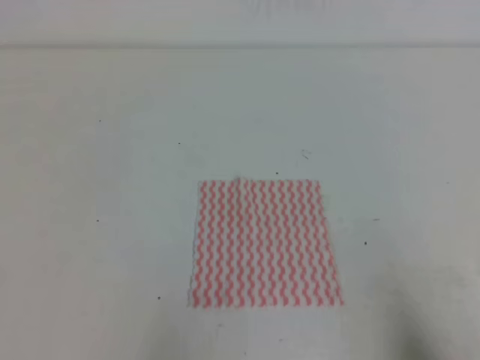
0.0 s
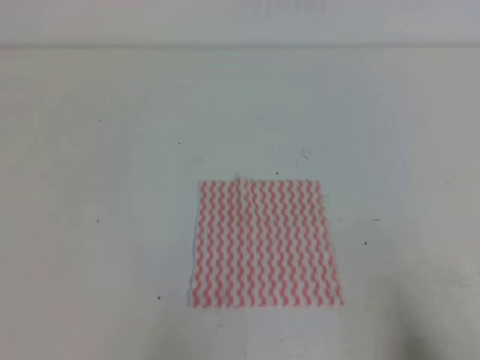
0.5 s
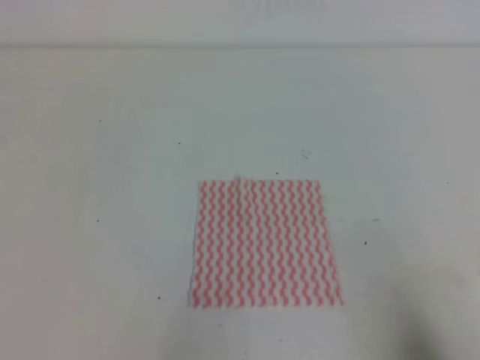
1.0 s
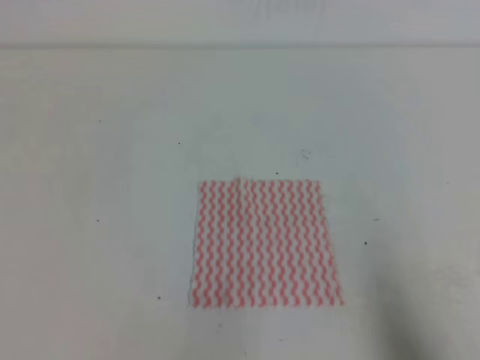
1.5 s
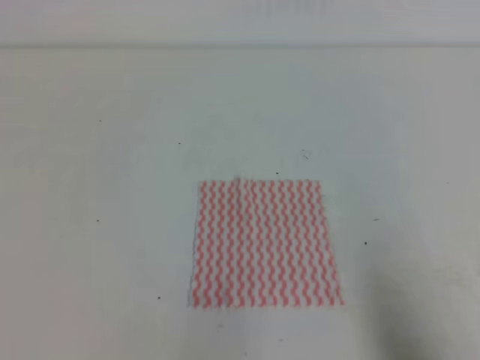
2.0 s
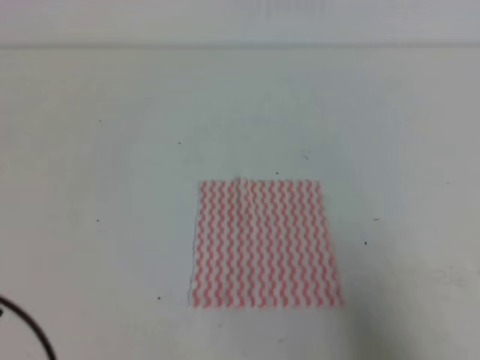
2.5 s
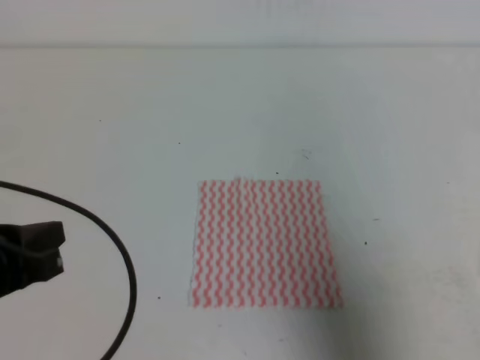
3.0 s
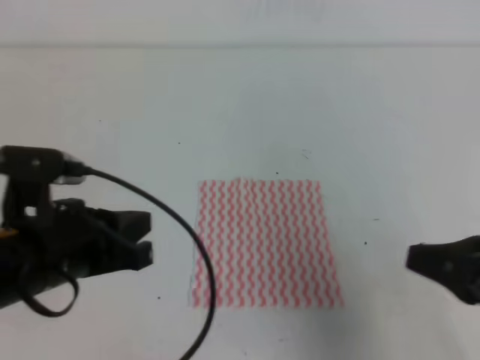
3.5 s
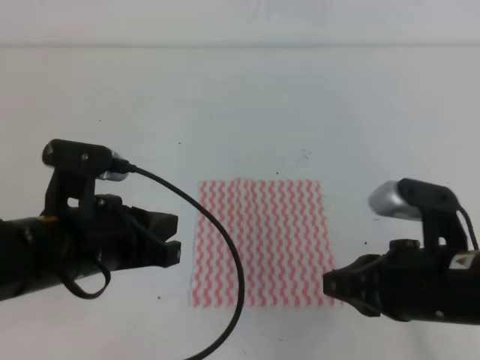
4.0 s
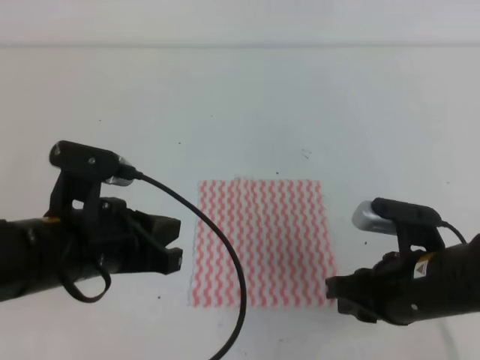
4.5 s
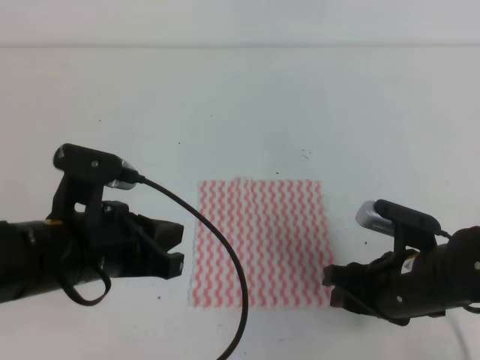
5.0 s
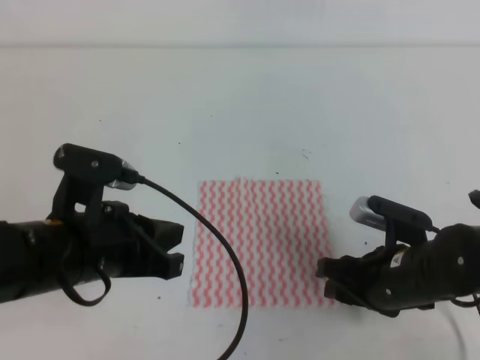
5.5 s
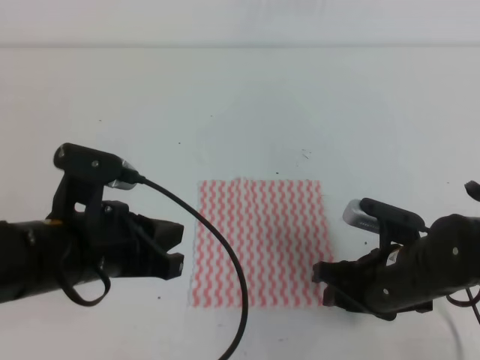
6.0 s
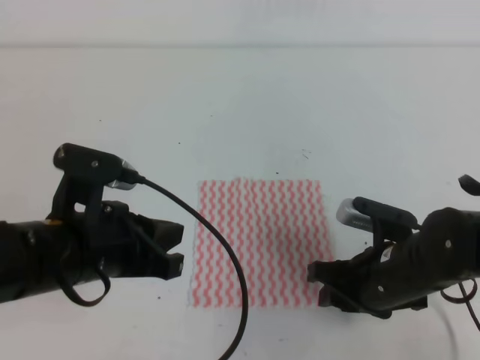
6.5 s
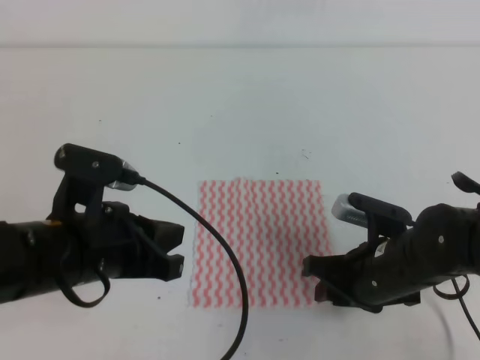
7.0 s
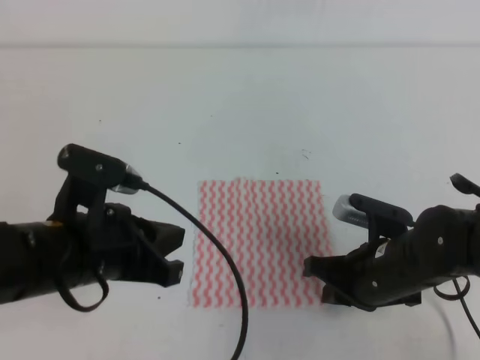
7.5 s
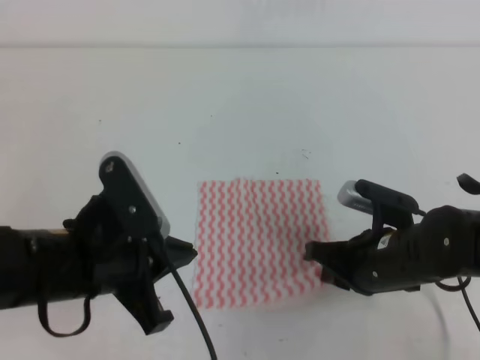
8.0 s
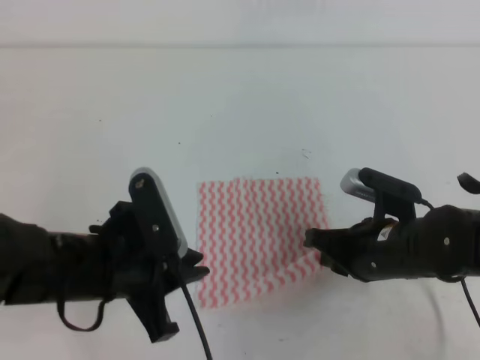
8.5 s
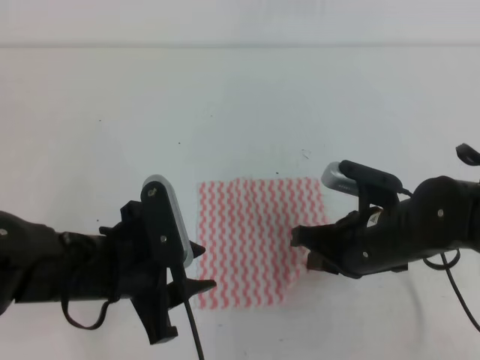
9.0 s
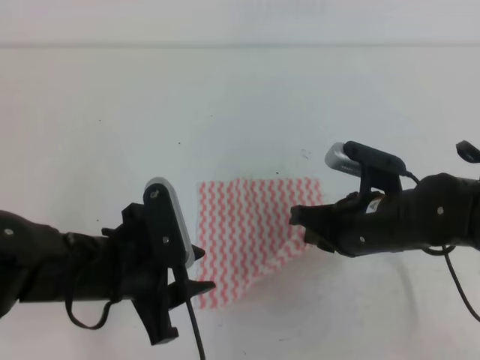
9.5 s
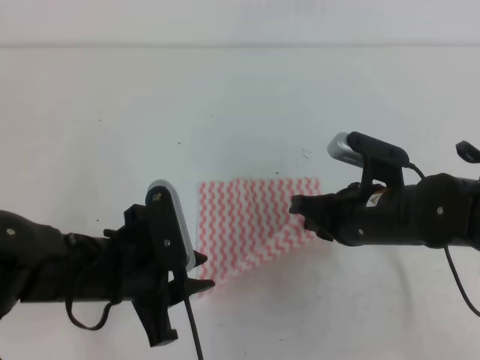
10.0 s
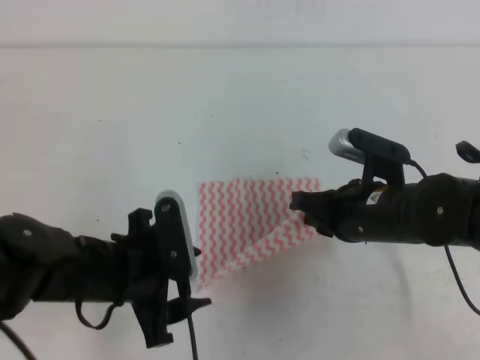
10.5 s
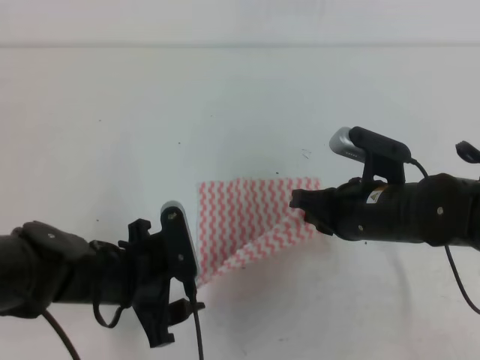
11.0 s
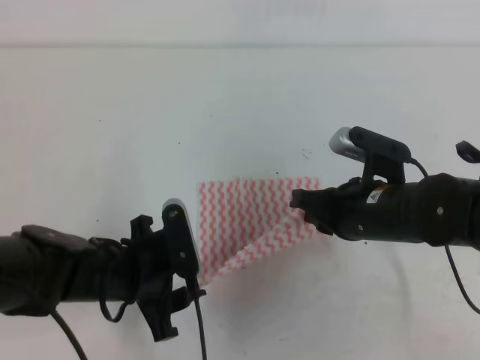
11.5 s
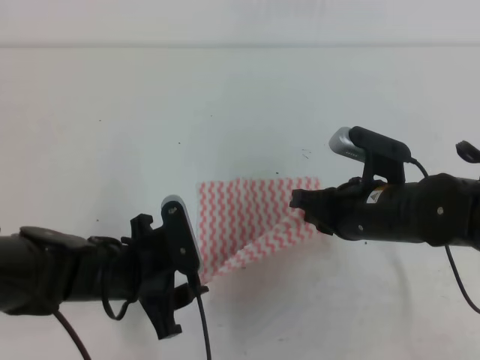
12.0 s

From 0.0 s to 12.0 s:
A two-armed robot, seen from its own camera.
From 2.0 s to 4.0 s: The left gripper moves forward and to the right, roughly 20 cm. The right gripper is displaced to the left and forward by approximately 20 cm.
From 4.0 s to 6.0 s: The right gripper heads downward and forward, covering approximately 10 cm, and opens its fingers.
From 6.0 s to 8.0 s: The right gripper closes its fingers.
From 8.0 s to 10.0 s: The left gripper opens its fingers.
From 10.0 s to 12.0 s: The left gripper heads downward, covering about 5 cm.

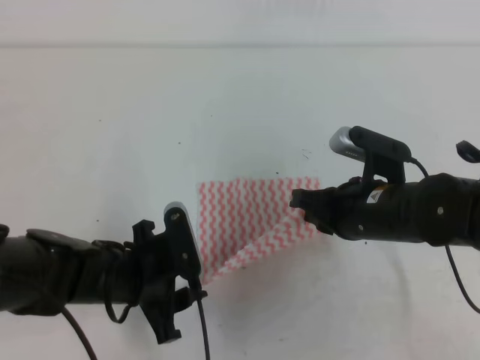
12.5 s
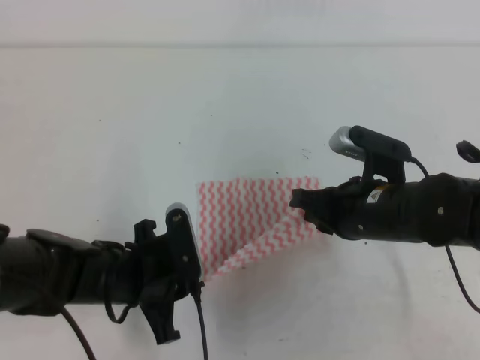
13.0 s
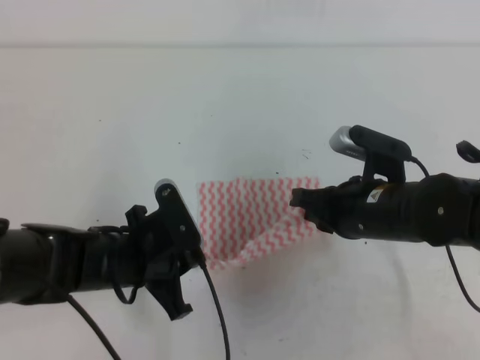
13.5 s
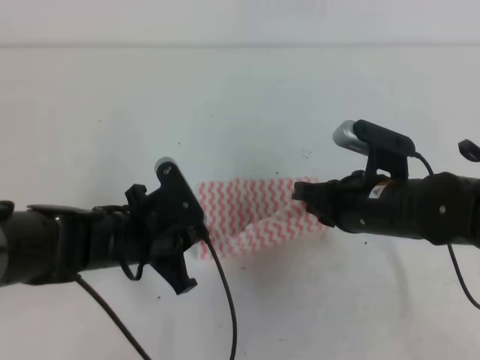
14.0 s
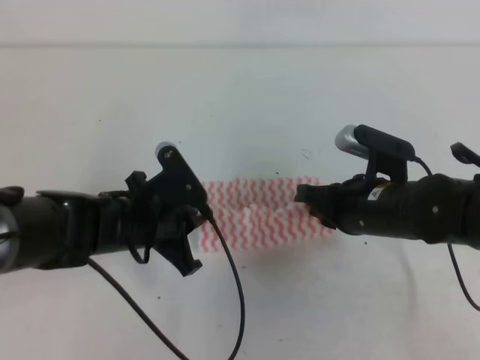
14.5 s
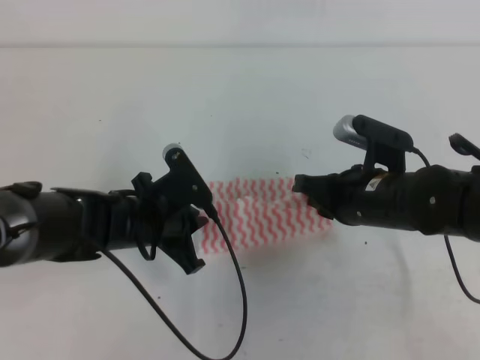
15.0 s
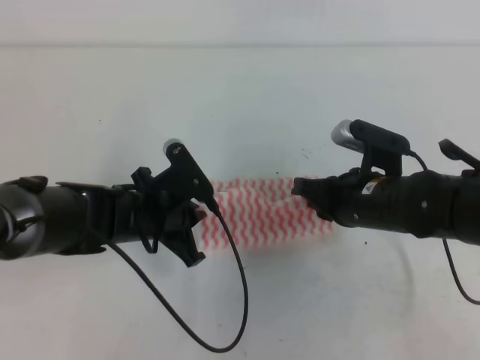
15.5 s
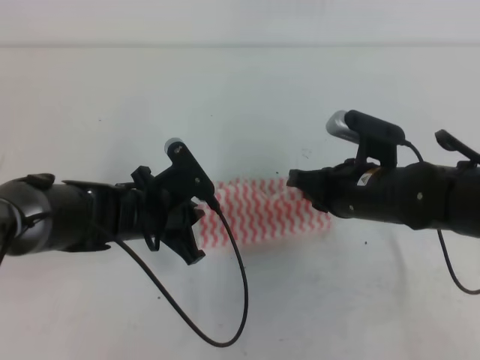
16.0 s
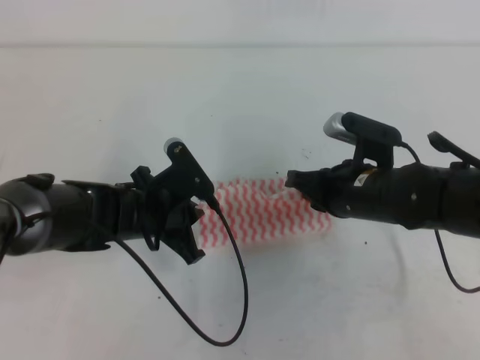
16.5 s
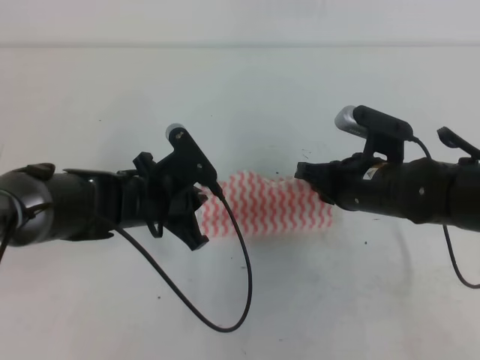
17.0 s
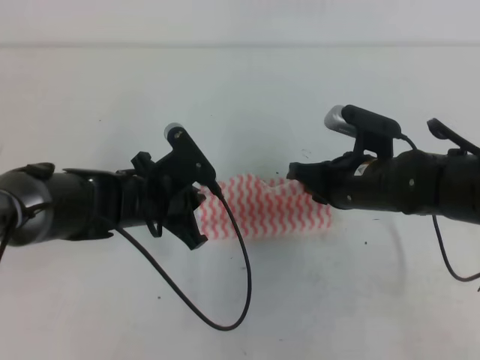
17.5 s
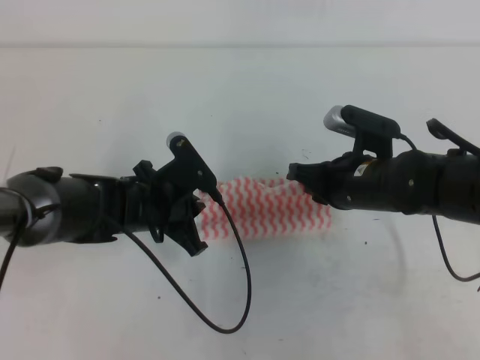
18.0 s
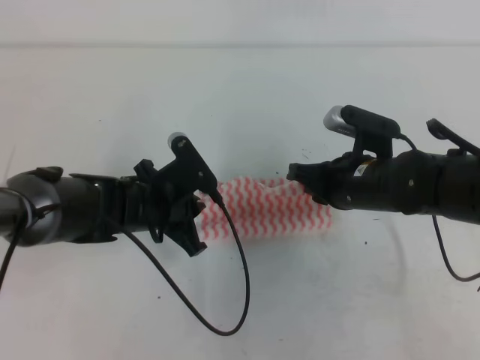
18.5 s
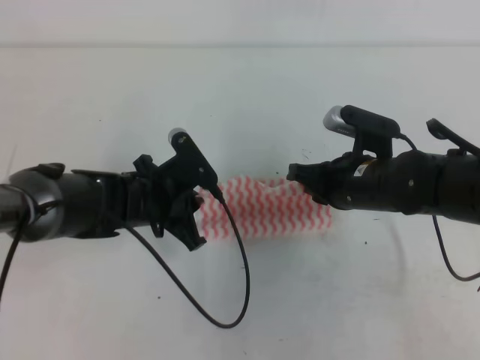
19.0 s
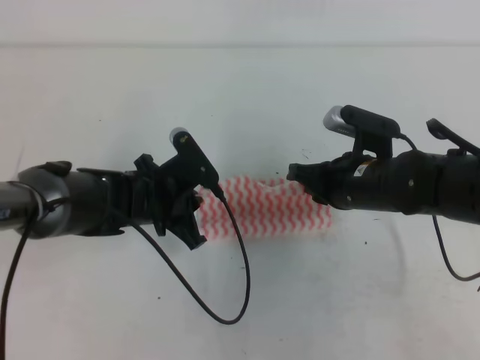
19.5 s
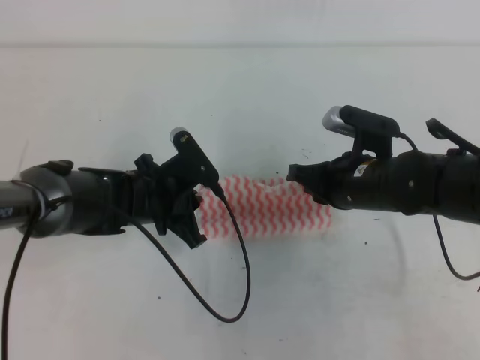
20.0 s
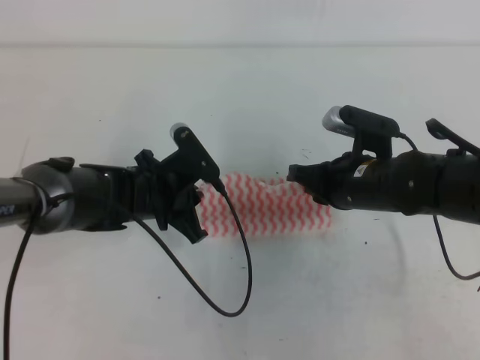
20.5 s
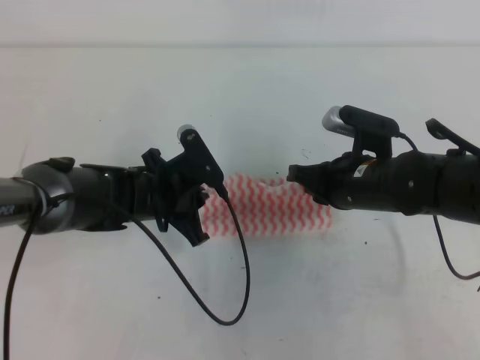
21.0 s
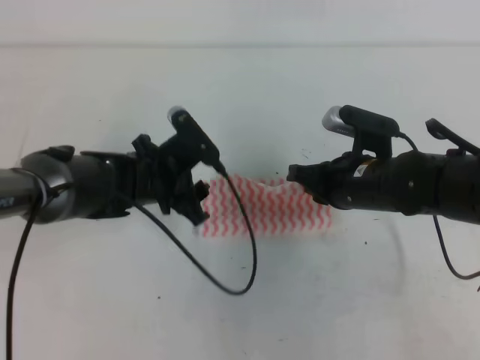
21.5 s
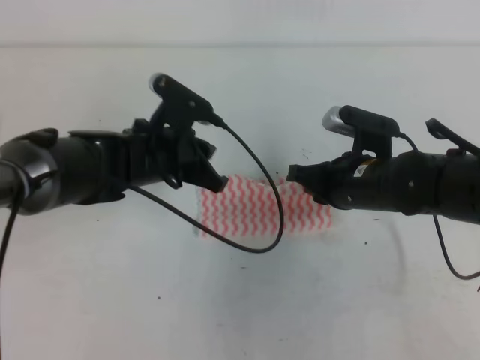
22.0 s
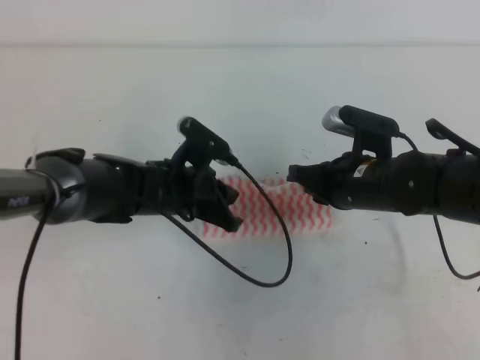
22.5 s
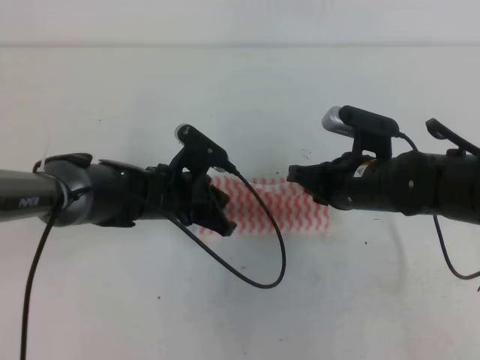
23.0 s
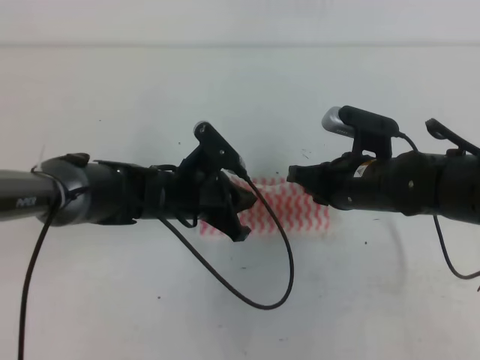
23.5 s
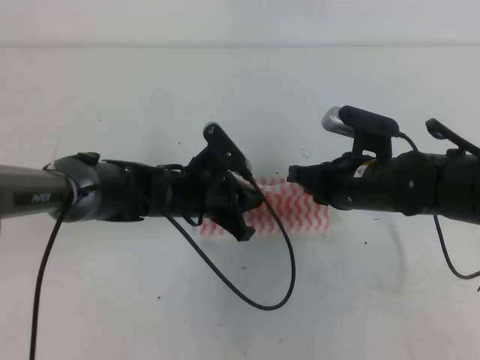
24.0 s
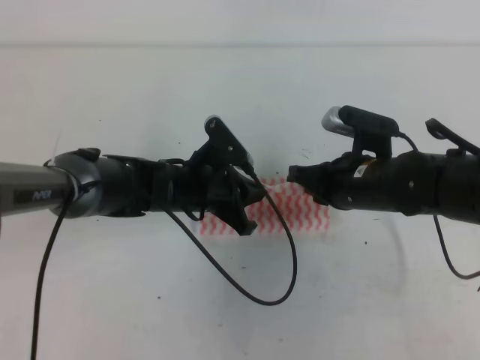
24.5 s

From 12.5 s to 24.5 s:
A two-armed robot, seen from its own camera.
From 12.5 s to 14.5 s: The left gripper ends up roughly 5 cm from where it was, and closes.
From 14.5 s to 20.5 s: The grippers move only a little.
From 20.5 s to 22.5 s: The left gripper opens, then closes again.
From 22.5 s to 24.5 s: The grippers stay close to where they were, moving slightly.

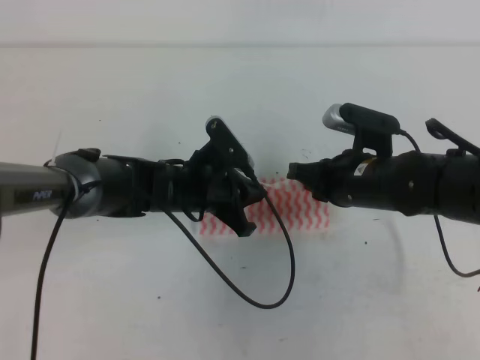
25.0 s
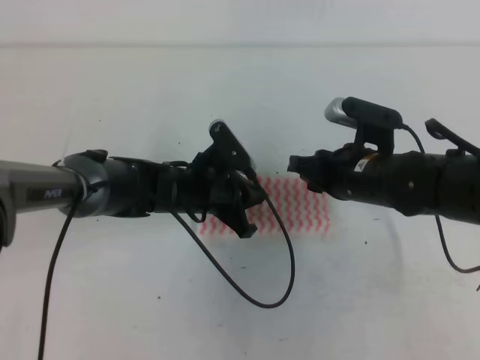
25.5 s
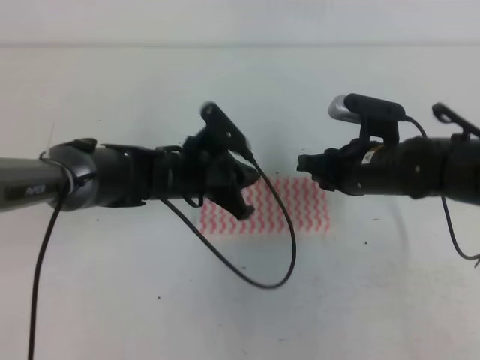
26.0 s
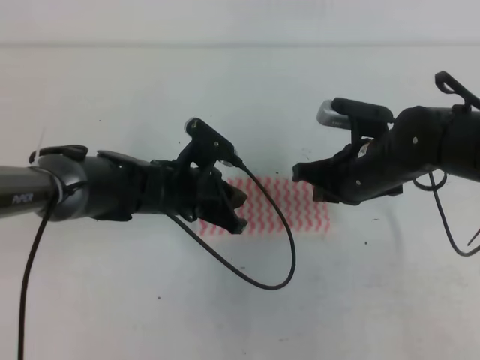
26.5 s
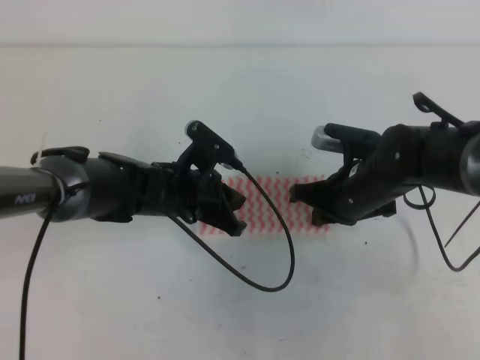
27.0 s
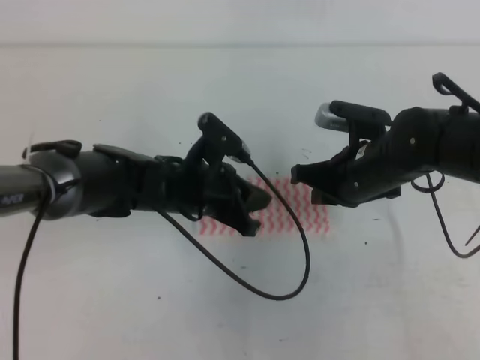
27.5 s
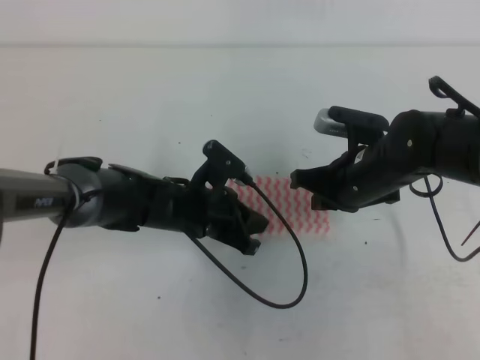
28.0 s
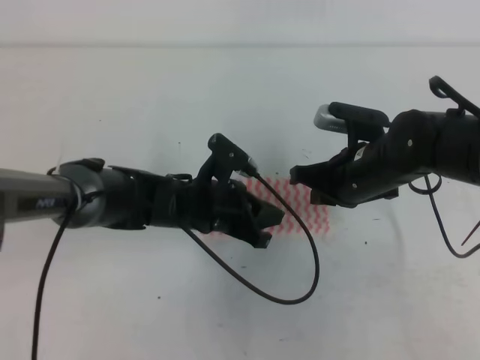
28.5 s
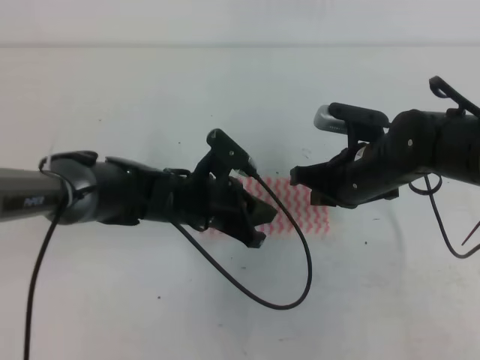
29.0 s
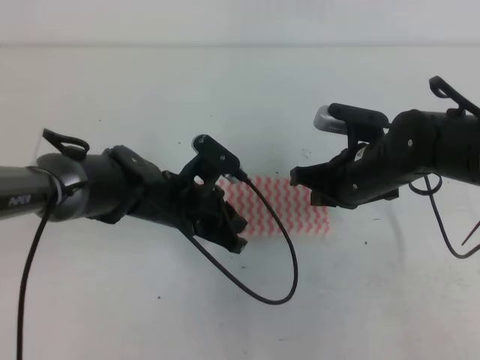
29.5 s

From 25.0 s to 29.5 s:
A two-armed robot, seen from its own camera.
From 25.0 s to 27.0 s: The right gripper opens, then closes again.
From 27.0 s to 29.5 s: The grippers move only a little.
